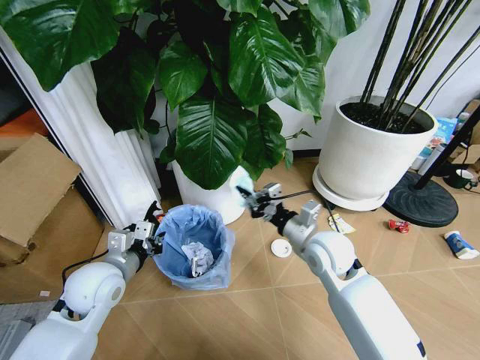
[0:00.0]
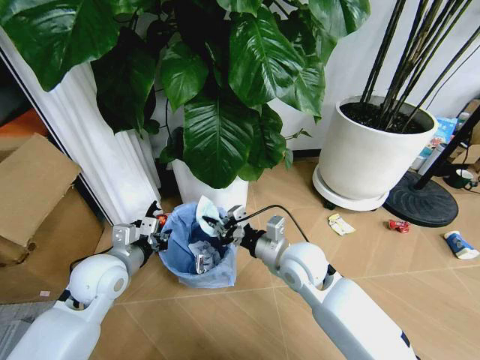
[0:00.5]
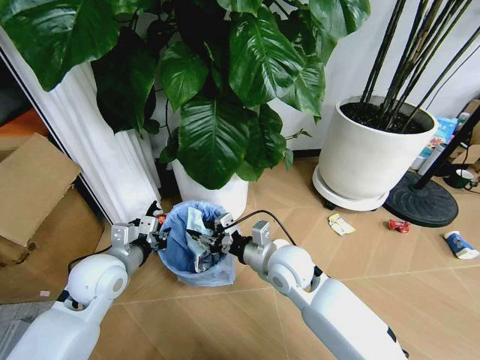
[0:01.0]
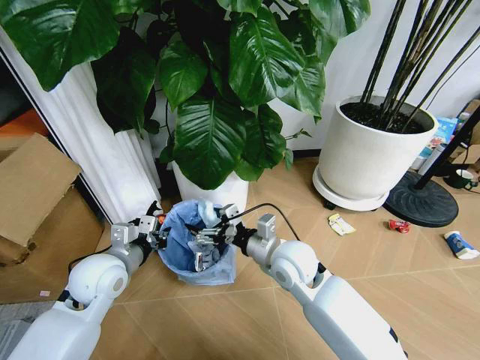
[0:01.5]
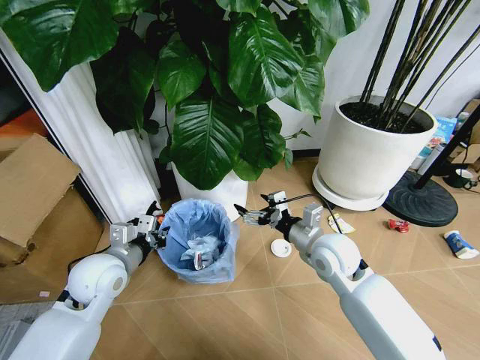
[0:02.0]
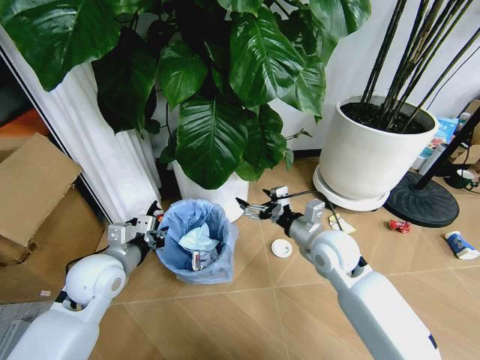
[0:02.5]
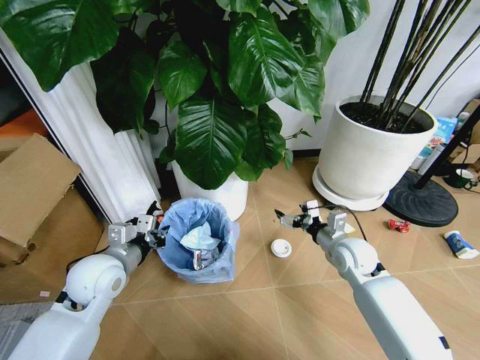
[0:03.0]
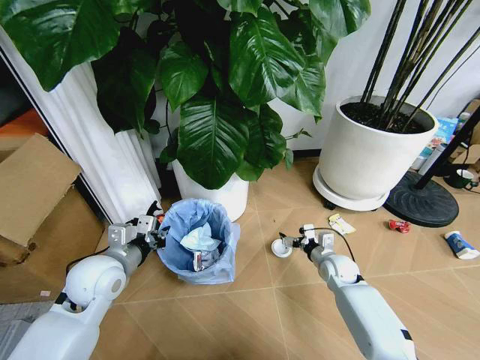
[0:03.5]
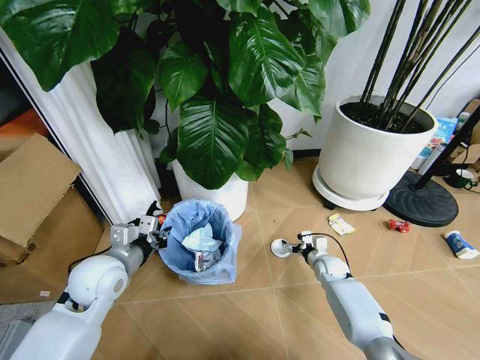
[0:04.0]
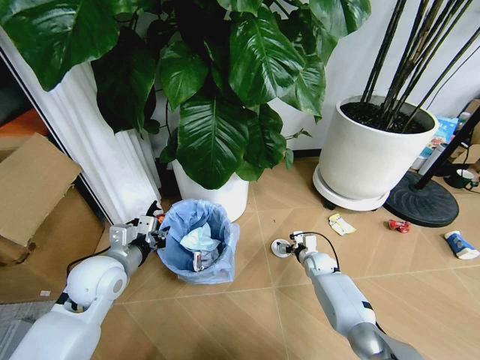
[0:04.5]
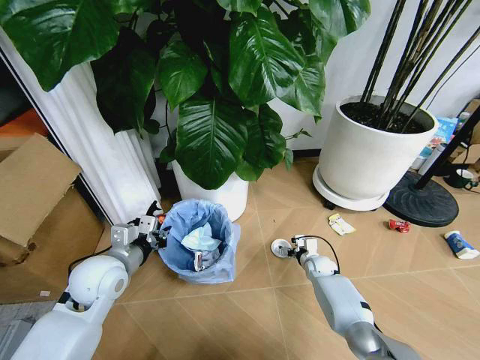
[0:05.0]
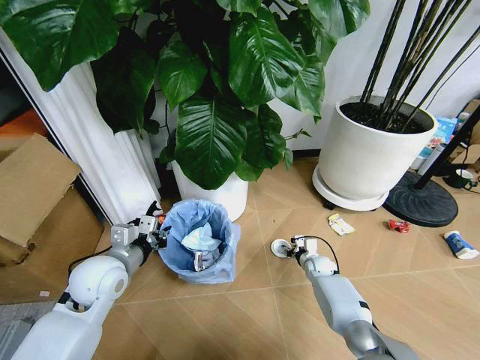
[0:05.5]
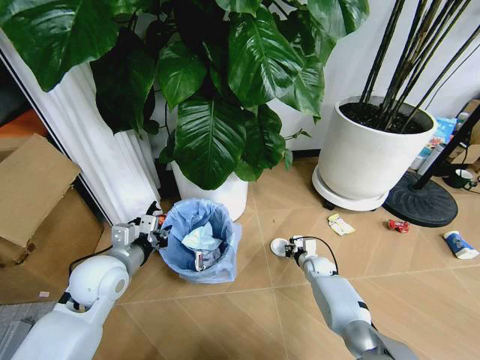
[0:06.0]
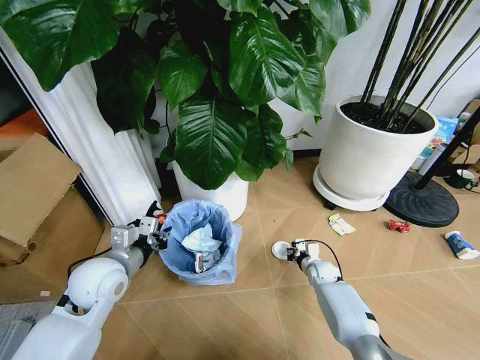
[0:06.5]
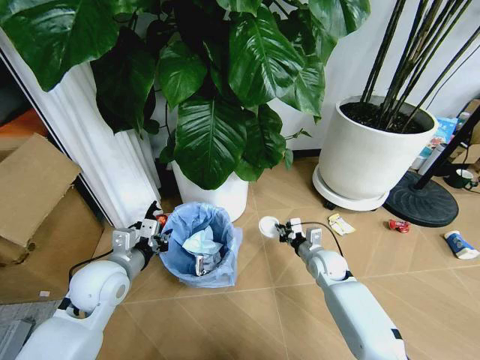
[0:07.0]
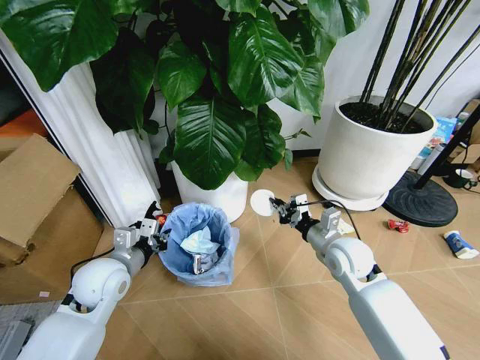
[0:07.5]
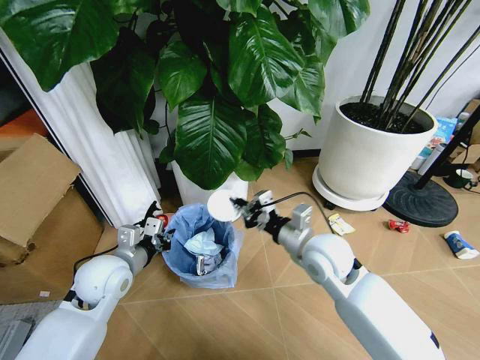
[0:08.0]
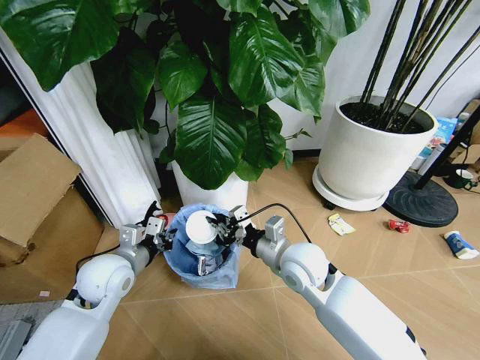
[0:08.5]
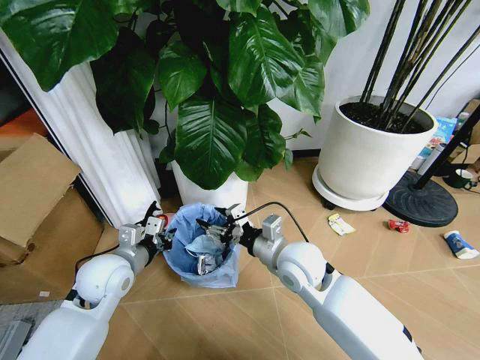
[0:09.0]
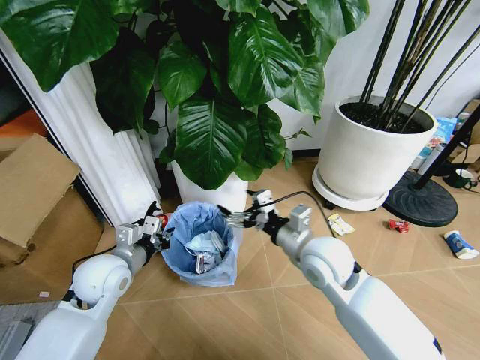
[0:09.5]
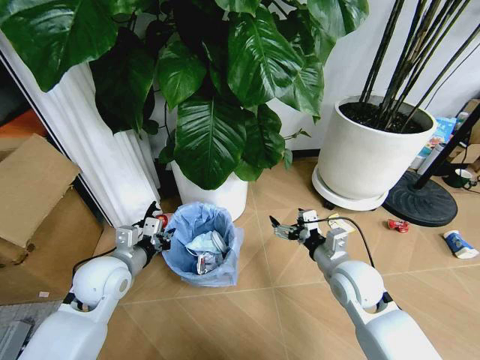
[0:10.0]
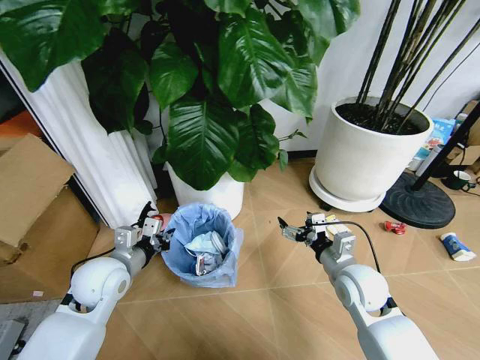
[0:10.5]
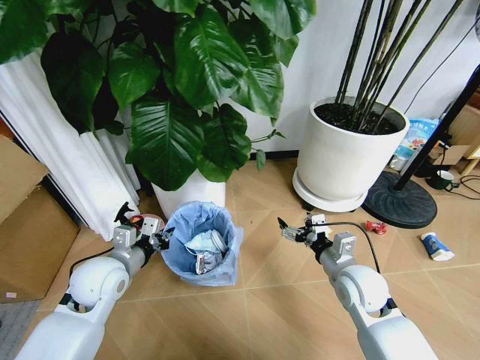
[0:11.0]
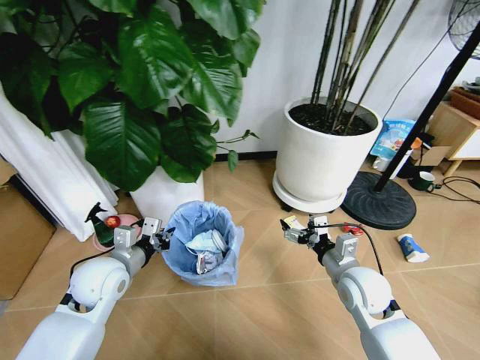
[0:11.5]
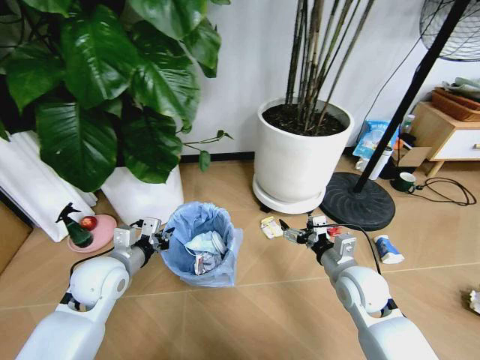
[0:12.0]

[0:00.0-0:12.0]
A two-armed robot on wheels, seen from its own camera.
Task of the whole recording: Pick up the trash bin and place the garbage on the floor into it.
0.0 to 2.0 s: The right gripper goes to the left and returns, about 10 cm each way, and opens.
2.0 to 4.0 s: The right gripper is displaced downward by approximately 25 cm.
4.0 to 6.0 s: The right gripper closes.
6.0 to 8.0 s: The right gripper goes about 30 cm upward.
8.0 to 10.0 s: The right gripper travels to the right and downward by roughly 10 cm, and opens.

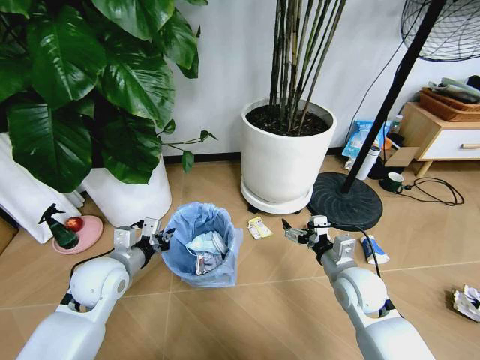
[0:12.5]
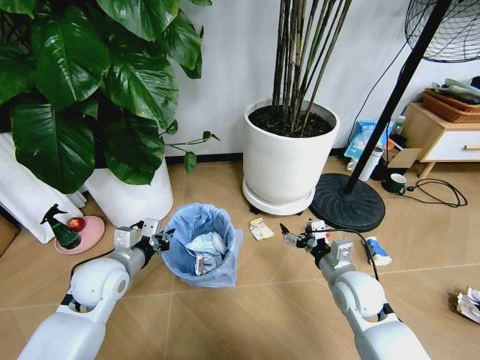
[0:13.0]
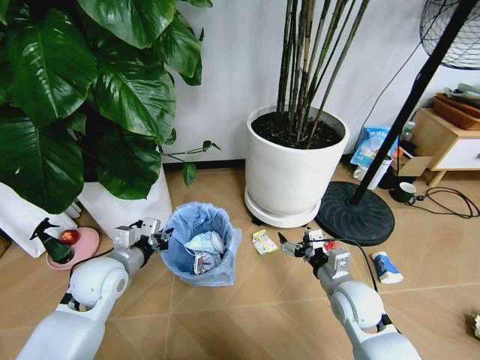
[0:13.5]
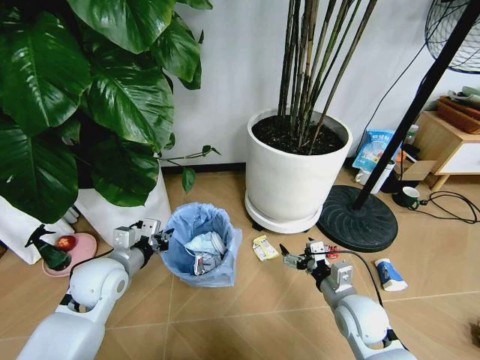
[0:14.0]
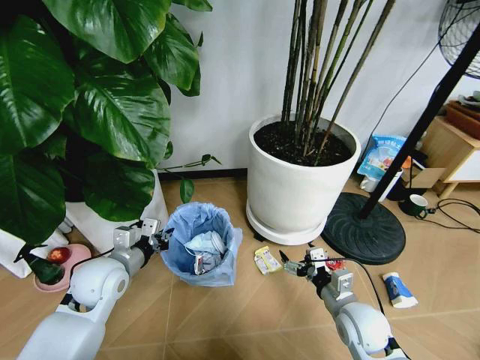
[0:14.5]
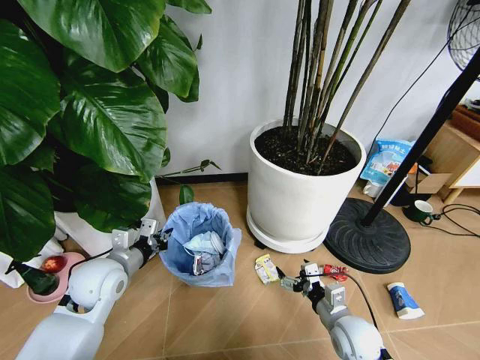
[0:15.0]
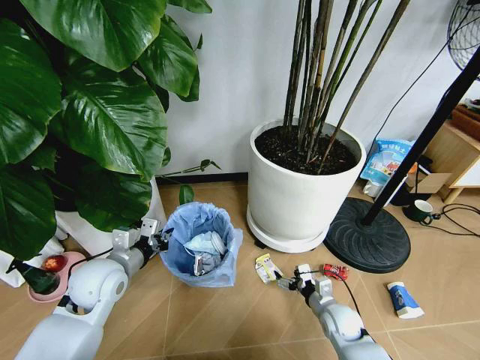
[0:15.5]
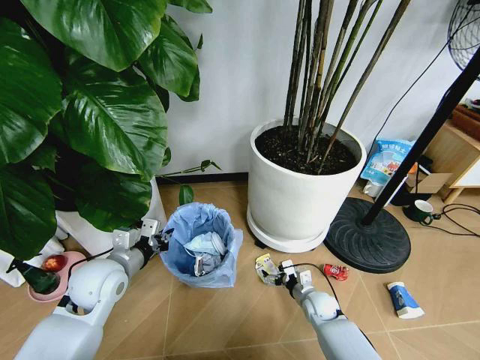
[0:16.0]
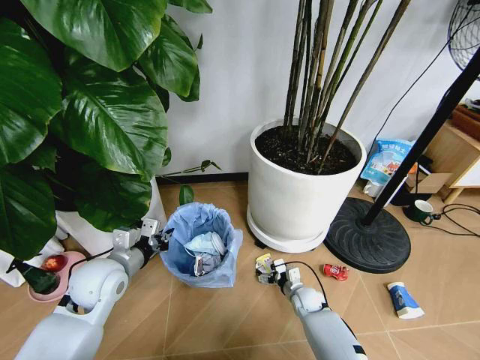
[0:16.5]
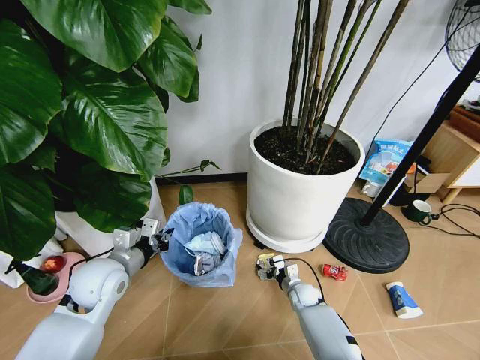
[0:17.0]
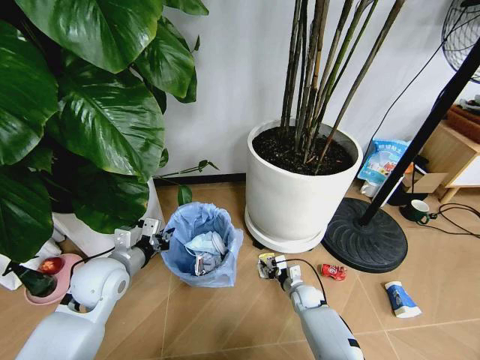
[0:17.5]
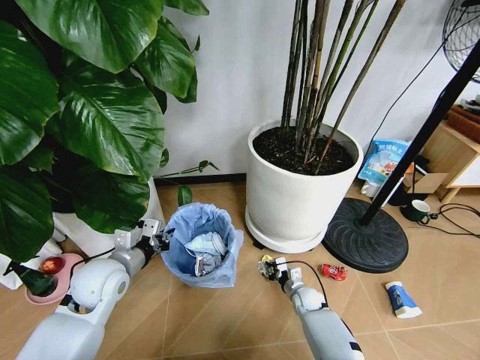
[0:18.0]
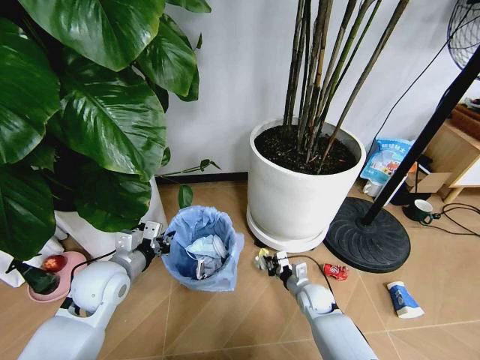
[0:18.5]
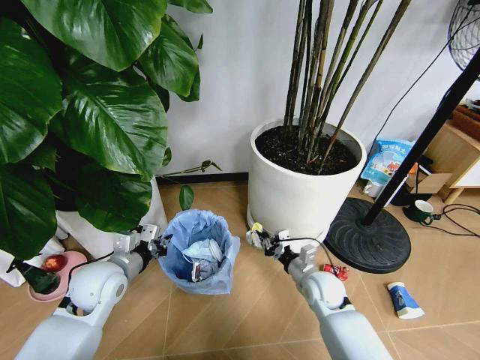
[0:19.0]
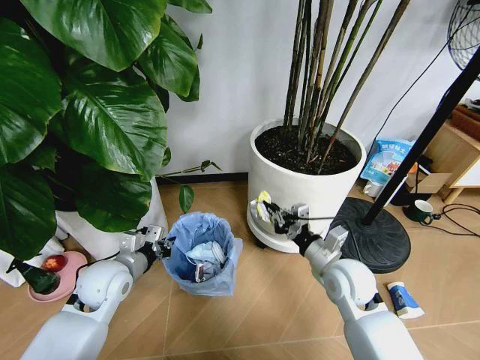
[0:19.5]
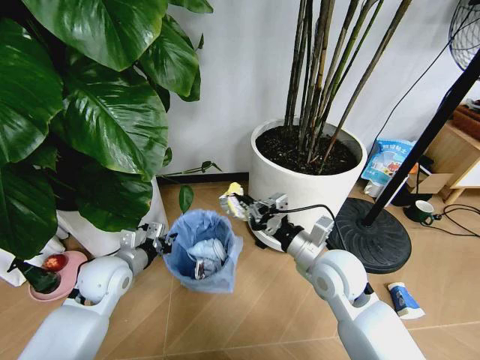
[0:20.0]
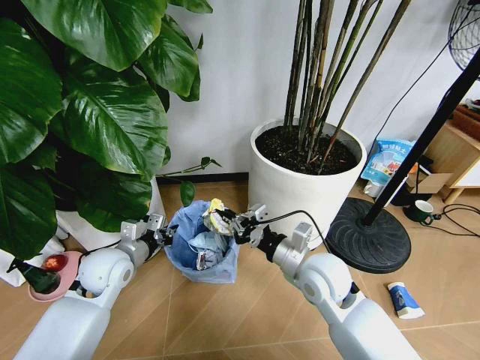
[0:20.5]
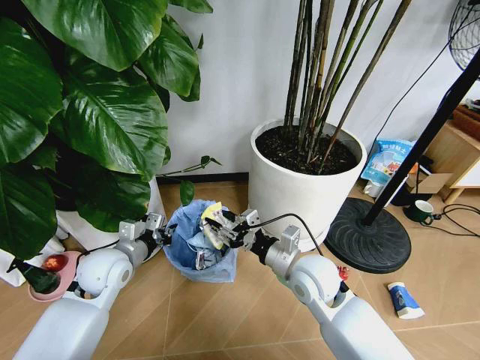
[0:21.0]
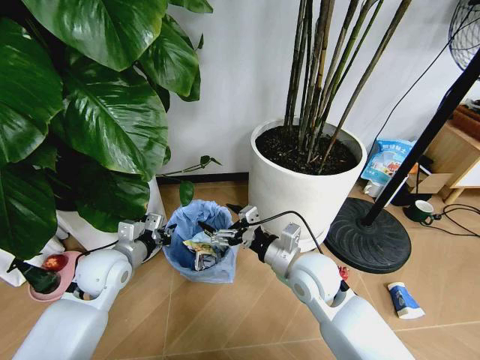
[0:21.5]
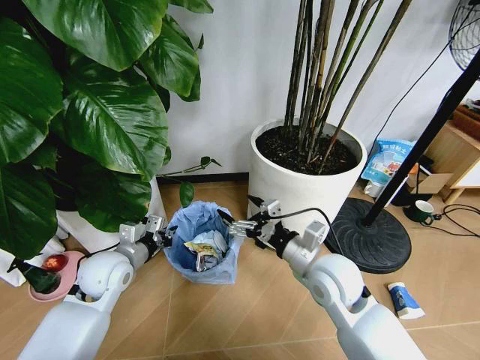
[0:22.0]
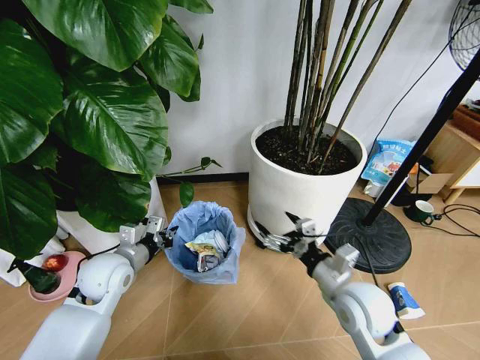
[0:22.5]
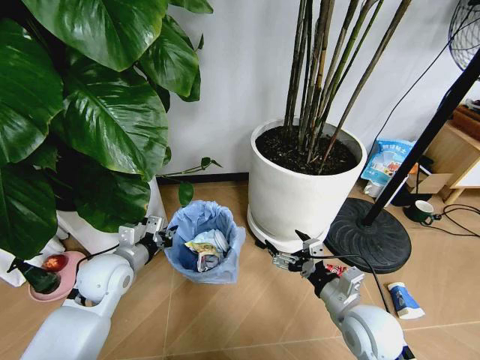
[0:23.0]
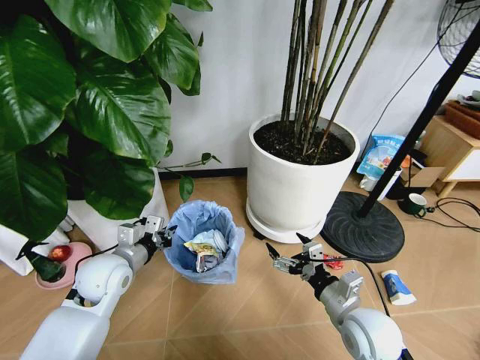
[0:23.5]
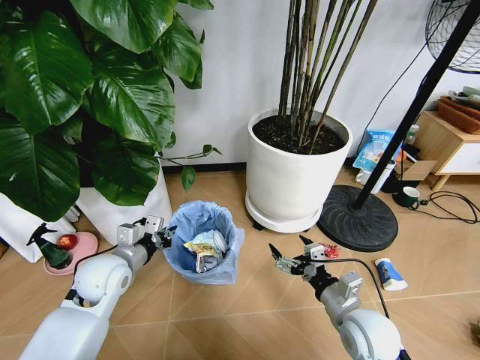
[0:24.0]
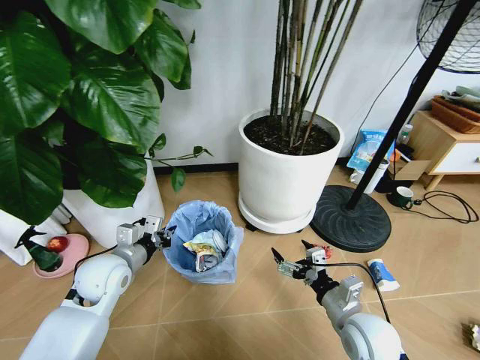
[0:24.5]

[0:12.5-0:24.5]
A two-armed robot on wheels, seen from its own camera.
Task of the whole recording: Pick up the trash bin and place the garbage on the floor into it.
12.5 to 14.5 s: The right gripper travels backward by roughly 5 cm.
14.5 to 16.5 s: The right gripper goes some 25 cm downward and forward.
16.5 to 18.5 s: The right gripper goes some 5 cm upward, and closes its fingers.
18.5 to 20.5 s: The right gripper shifts about 25 cm upward.
20.5 to 22.5 s: The right gripper goes roughly 5 cm to the right, and opens its fingers.
22.5 to 24.5 s: The right gripper shifts some 5 cm downward.

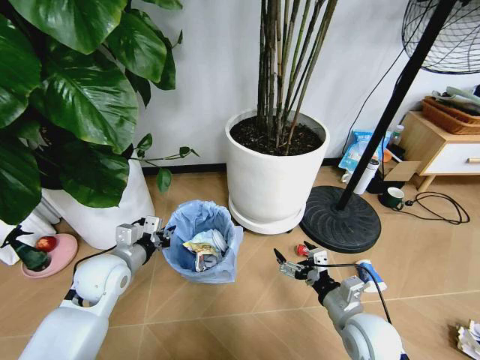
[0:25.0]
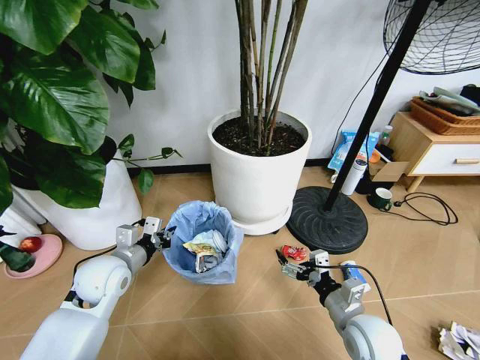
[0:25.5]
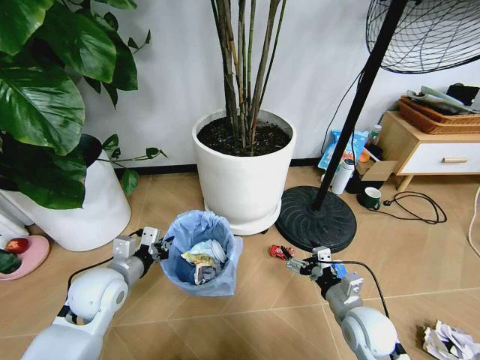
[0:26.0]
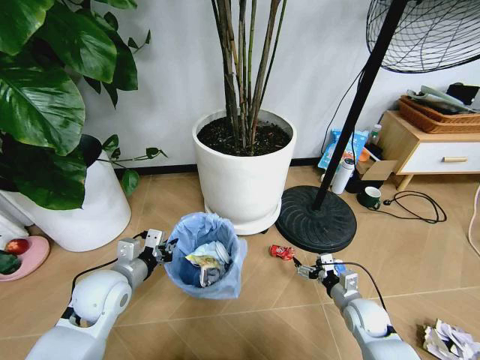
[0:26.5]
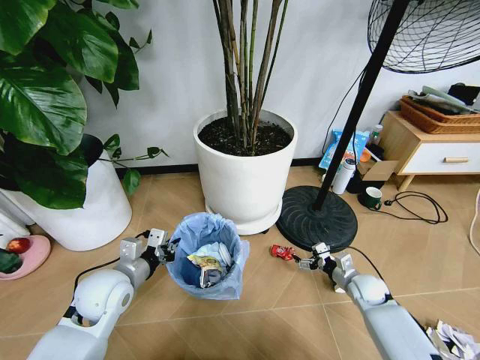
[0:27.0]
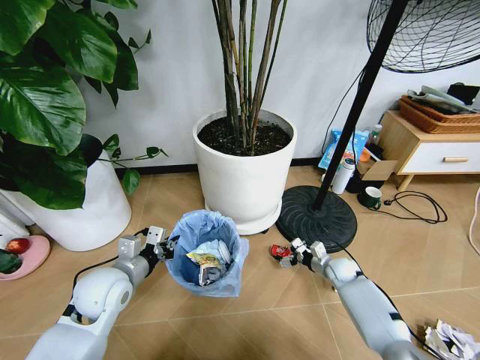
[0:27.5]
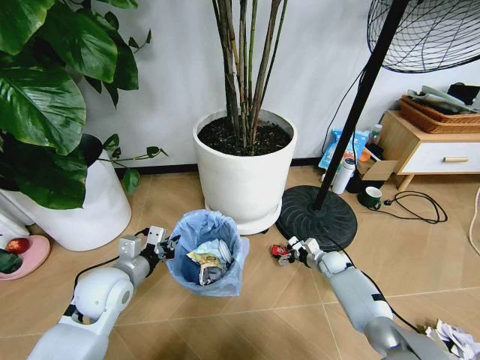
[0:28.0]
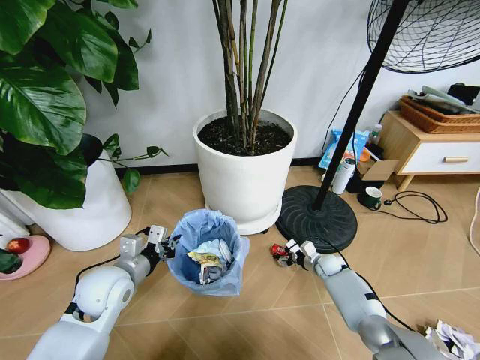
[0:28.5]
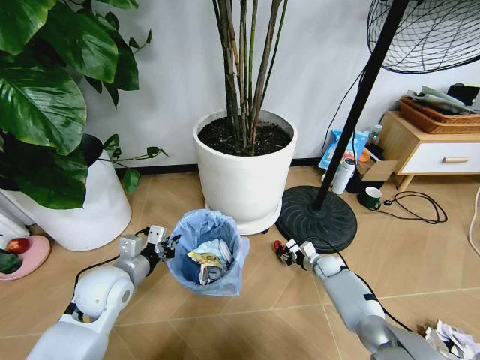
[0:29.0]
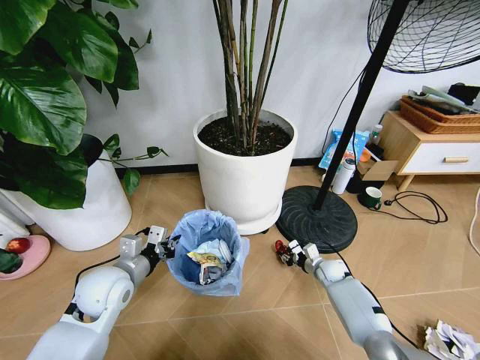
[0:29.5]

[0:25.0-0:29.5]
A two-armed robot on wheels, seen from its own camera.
Task of the whole recording: Pick up the trash bin and place the garbage on the floor into it.
25.0 to 27.0 s: The right gripper is displaced forward, downward and to the right by some 25 cm.
27.0 to 29.5 s: The right gripper shifts some 10 cm forward, to the left and downward, and closes.
